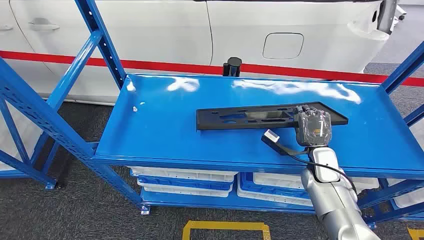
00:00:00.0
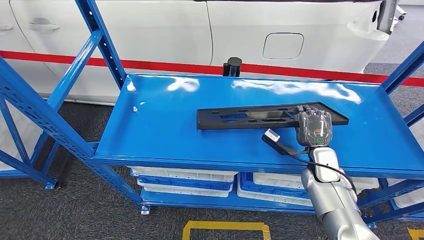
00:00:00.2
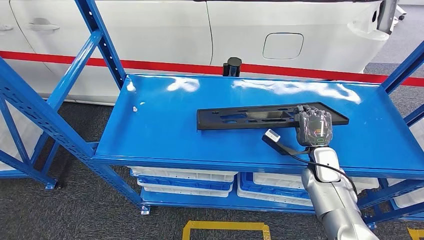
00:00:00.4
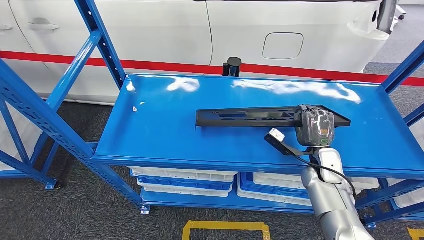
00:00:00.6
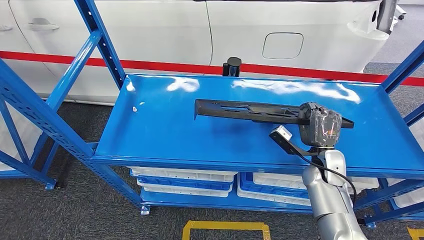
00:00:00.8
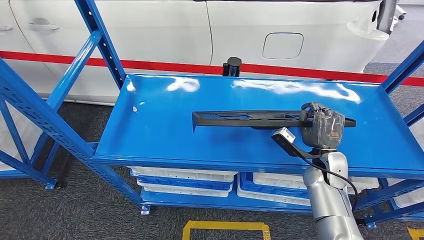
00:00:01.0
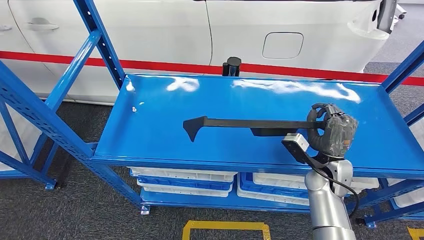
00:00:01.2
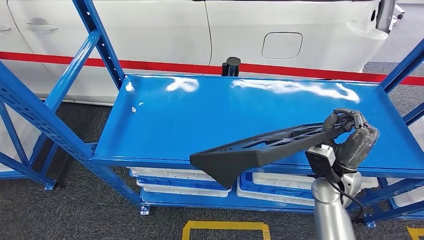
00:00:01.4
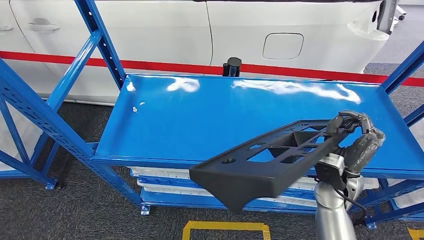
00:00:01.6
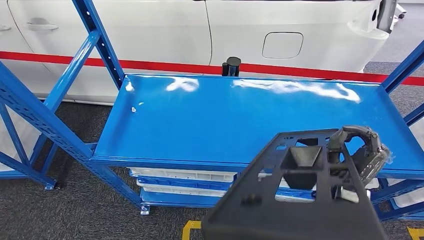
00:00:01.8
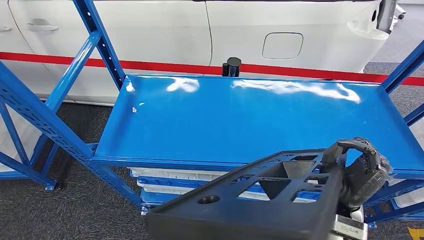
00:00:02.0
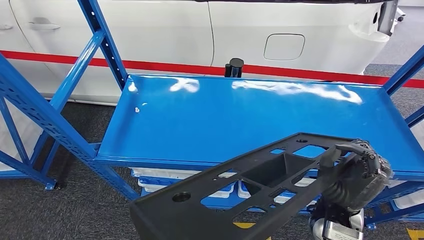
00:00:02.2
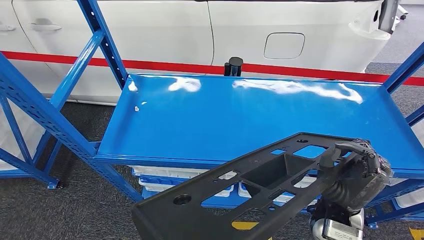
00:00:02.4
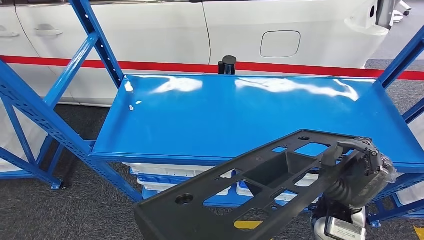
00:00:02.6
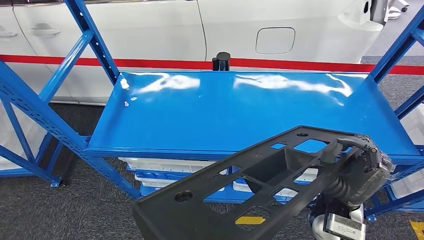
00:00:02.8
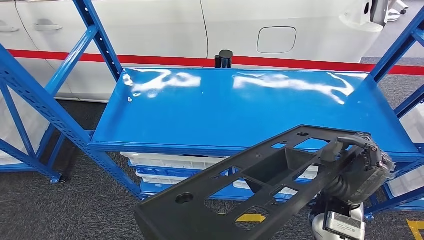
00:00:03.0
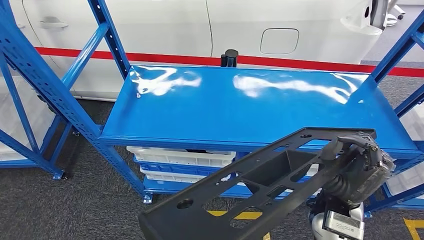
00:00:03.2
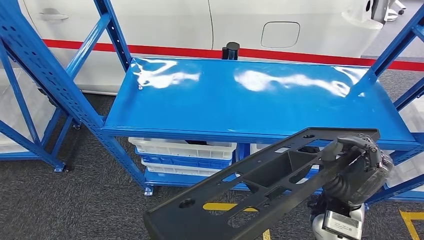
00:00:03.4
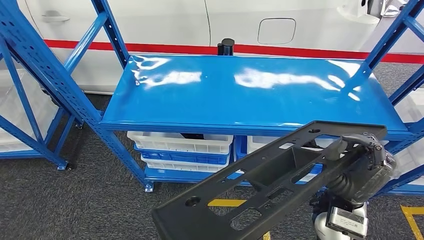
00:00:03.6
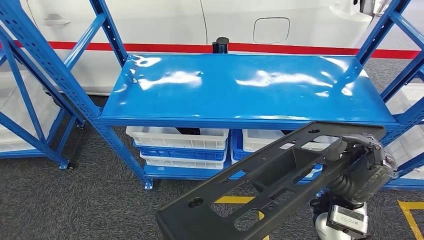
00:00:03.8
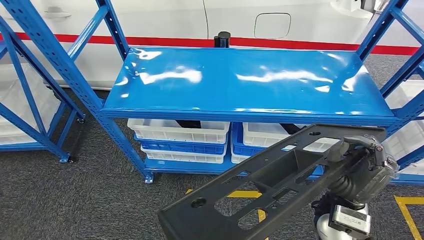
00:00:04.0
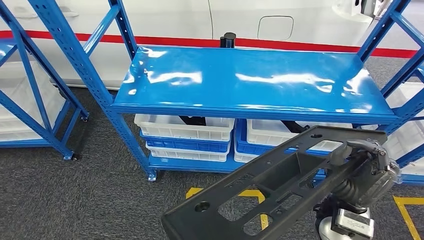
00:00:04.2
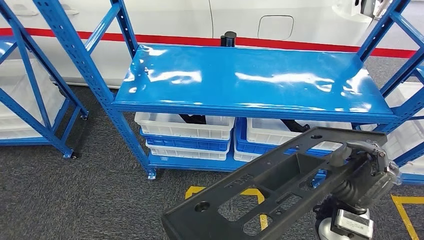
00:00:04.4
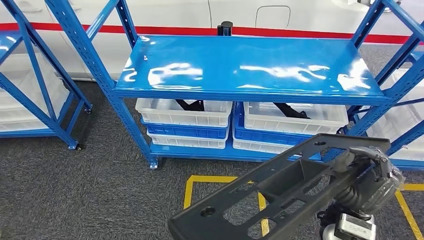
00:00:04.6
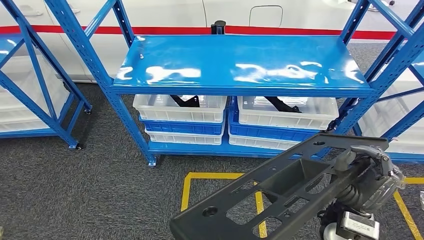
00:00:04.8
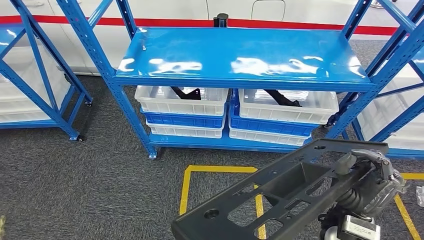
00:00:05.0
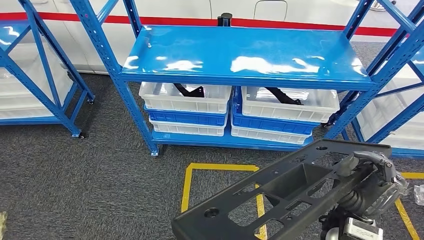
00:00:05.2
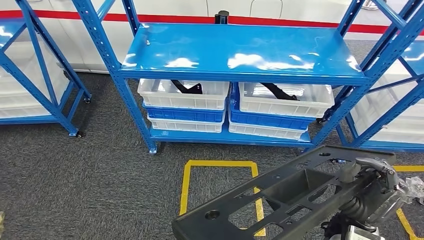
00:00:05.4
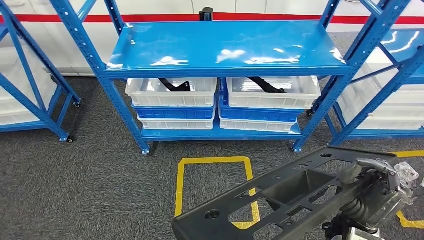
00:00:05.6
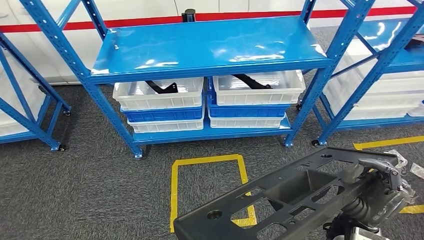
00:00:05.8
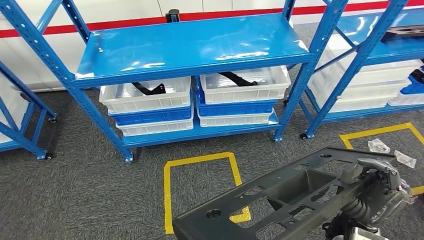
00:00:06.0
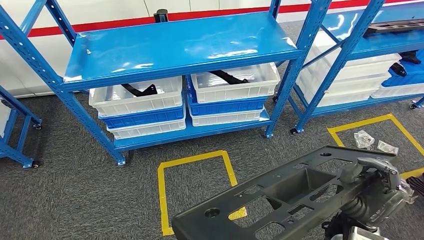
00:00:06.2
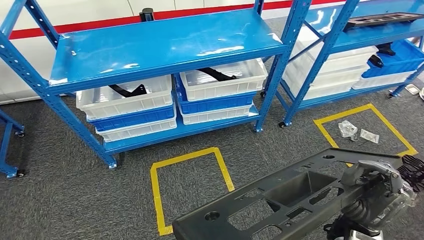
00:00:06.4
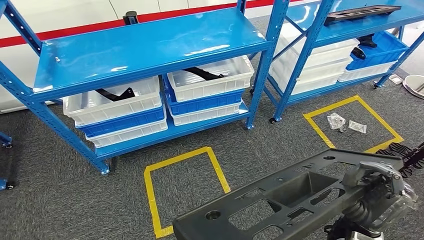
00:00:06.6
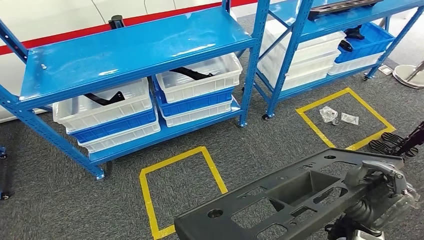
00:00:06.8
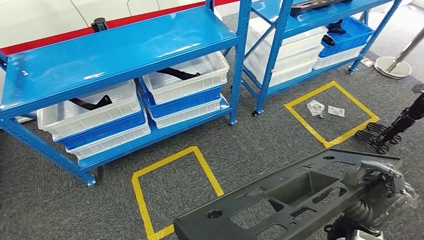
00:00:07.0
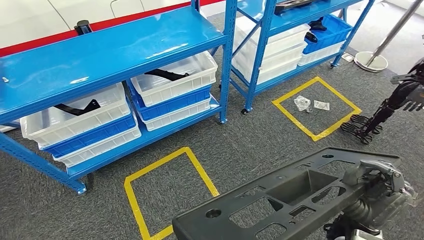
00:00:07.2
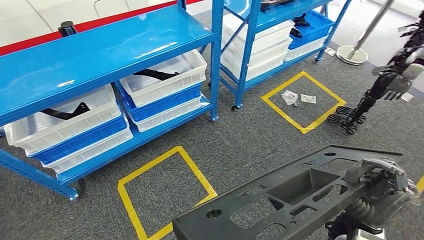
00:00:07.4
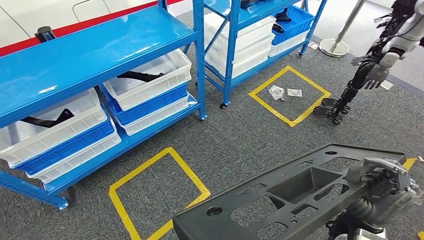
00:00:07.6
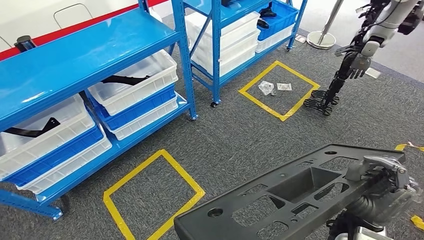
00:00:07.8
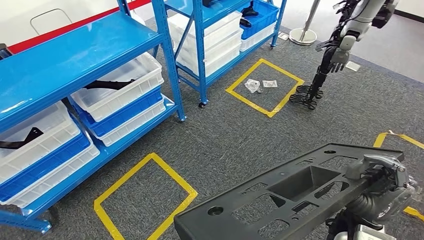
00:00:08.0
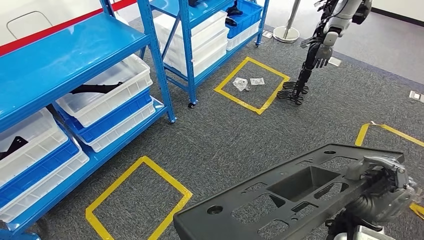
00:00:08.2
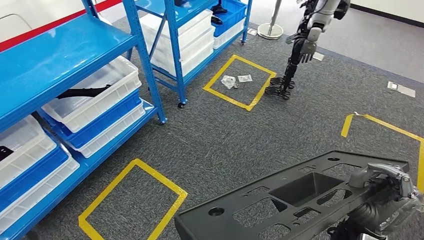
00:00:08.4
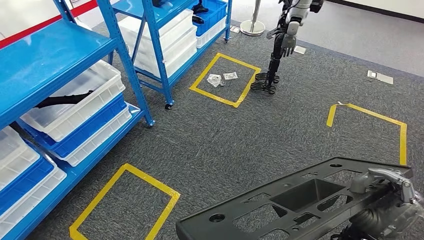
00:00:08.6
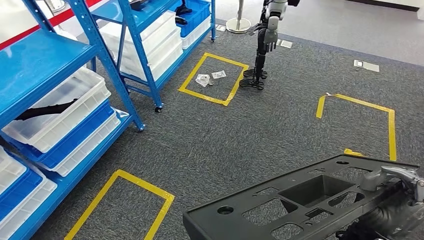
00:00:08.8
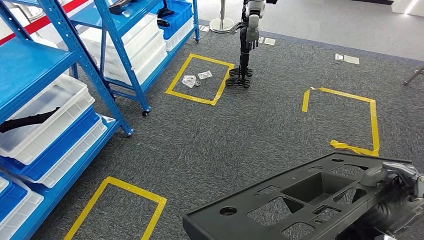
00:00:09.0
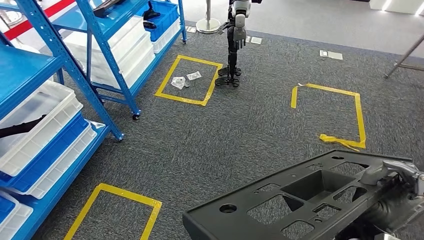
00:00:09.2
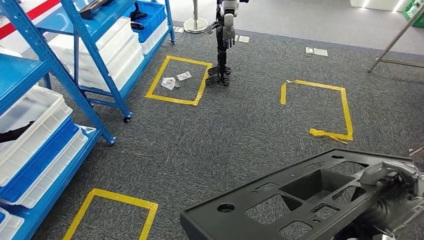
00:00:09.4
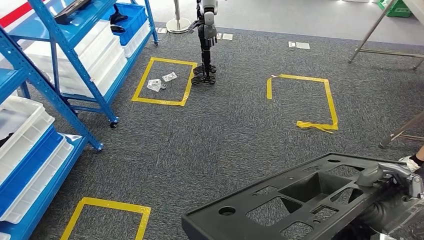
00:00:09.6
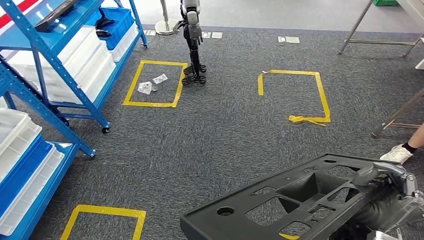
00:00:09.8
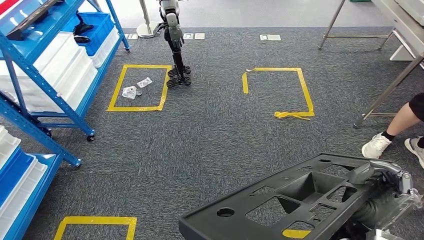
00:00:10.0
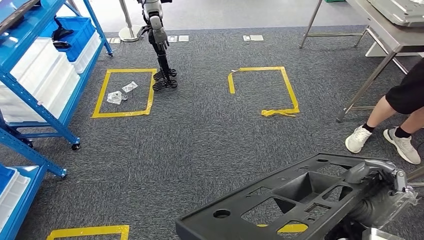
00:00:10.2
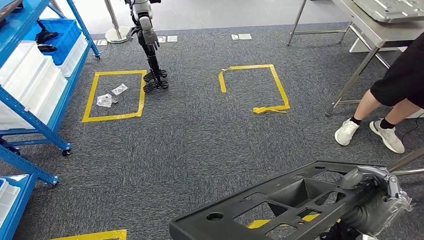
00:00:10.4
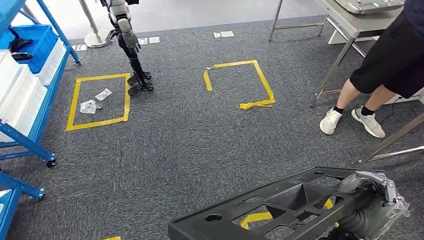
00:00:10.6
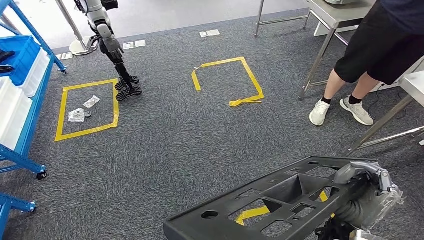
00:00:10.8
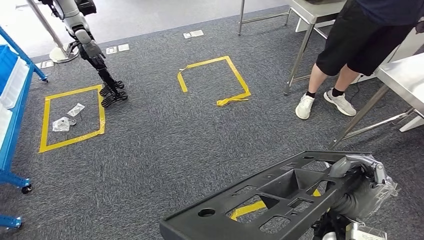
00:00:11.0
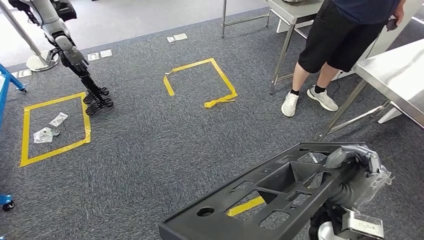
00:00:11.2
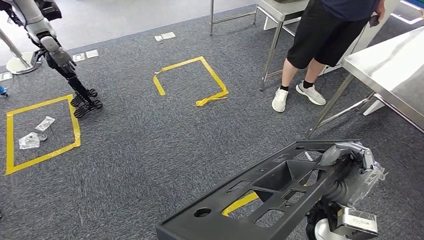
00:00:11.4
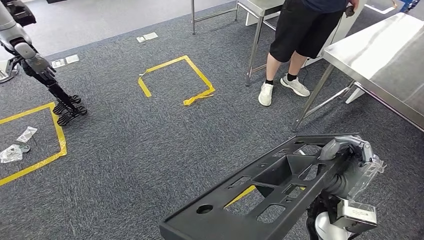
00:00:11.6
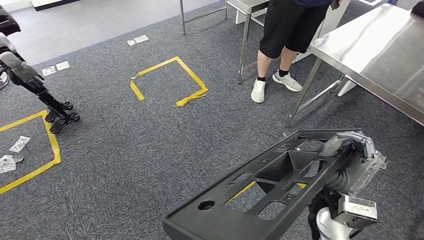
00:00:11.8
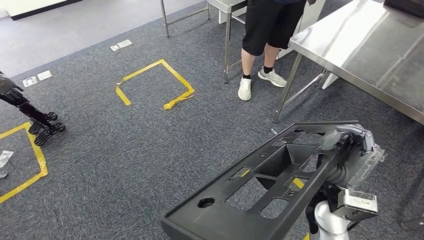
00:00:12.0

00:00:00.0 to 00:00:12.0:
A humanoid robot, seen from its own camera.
Step, 00:00:00.0 to 00:00:06.8: Pick up the large material from the shelf.

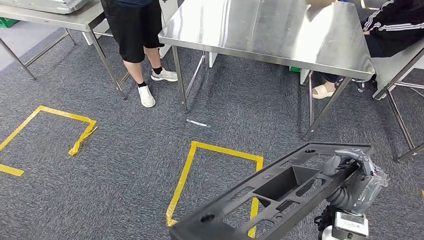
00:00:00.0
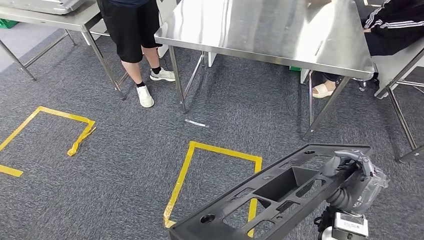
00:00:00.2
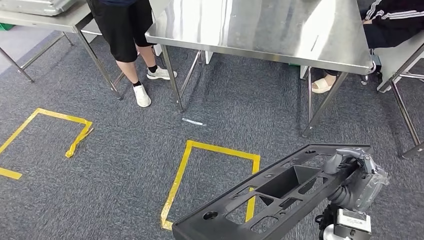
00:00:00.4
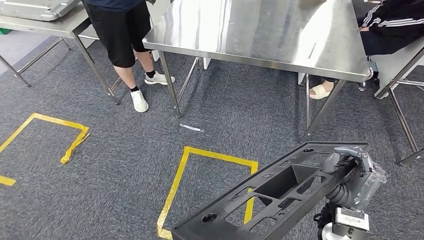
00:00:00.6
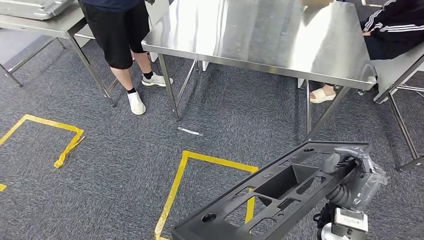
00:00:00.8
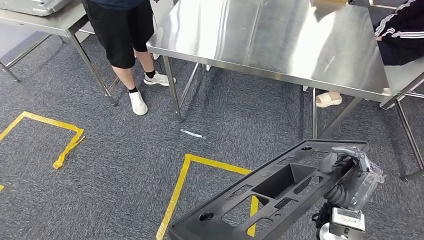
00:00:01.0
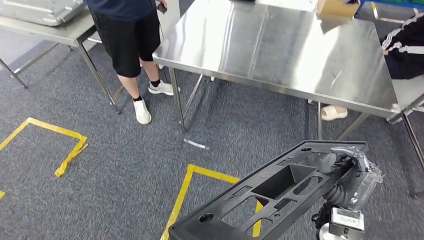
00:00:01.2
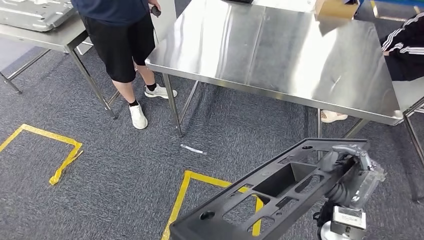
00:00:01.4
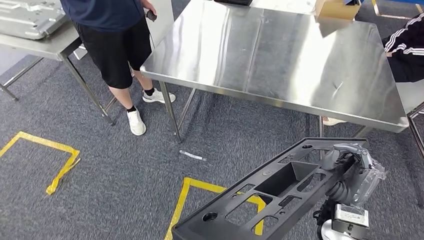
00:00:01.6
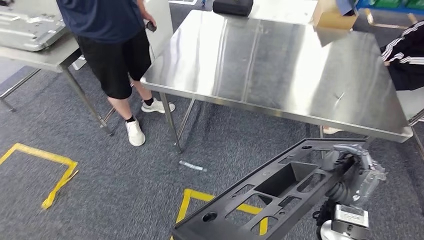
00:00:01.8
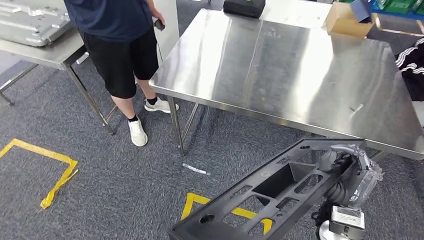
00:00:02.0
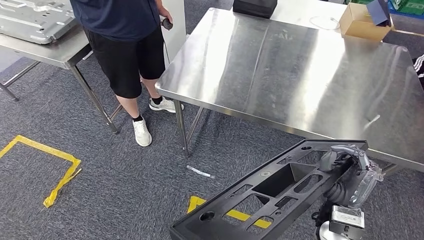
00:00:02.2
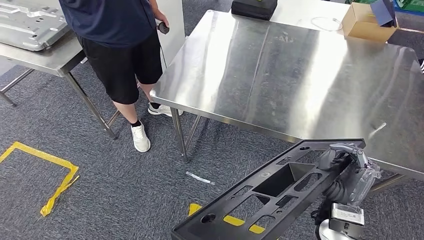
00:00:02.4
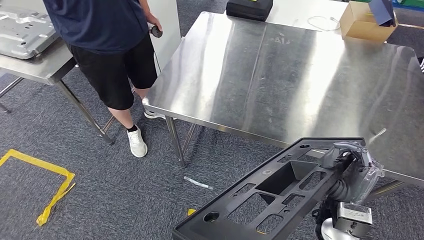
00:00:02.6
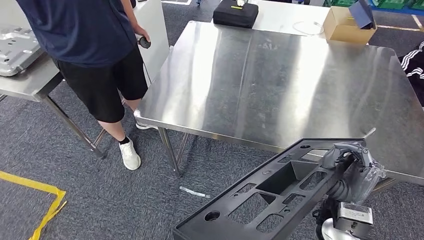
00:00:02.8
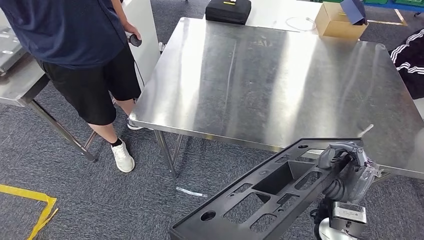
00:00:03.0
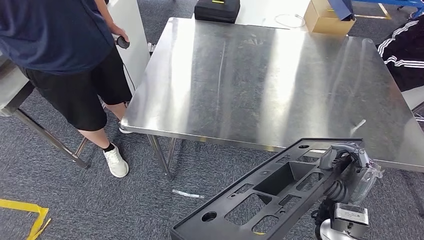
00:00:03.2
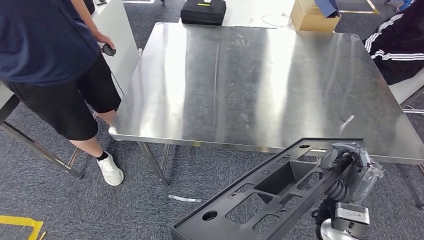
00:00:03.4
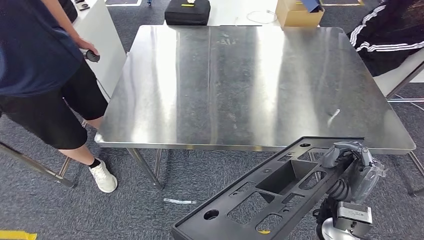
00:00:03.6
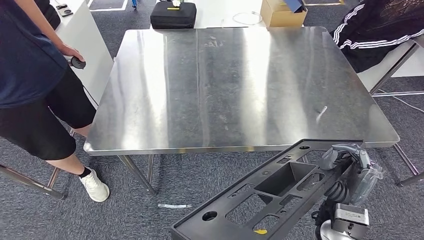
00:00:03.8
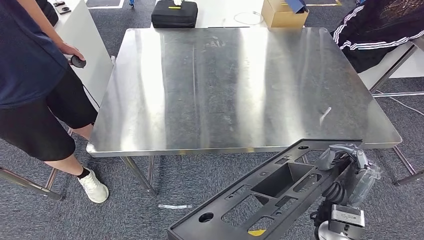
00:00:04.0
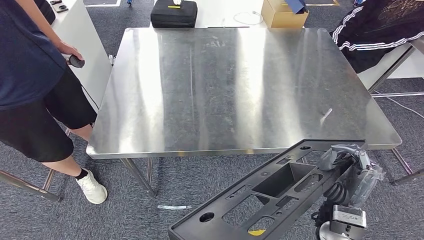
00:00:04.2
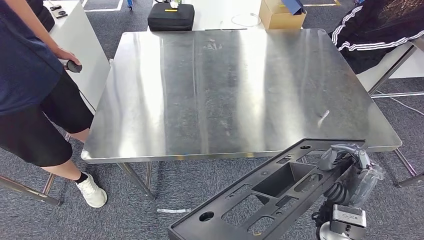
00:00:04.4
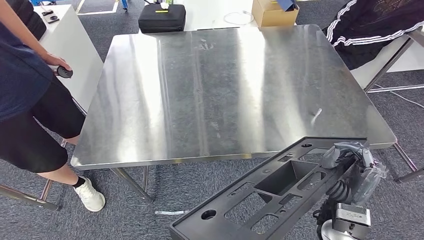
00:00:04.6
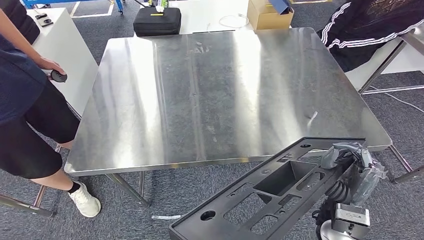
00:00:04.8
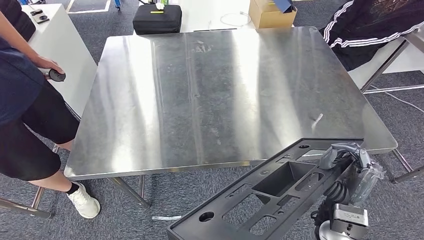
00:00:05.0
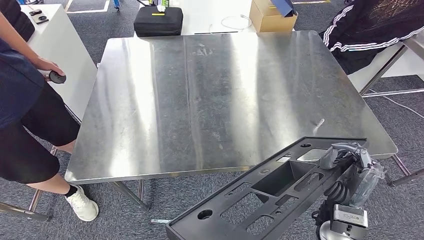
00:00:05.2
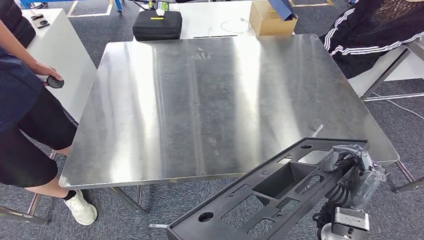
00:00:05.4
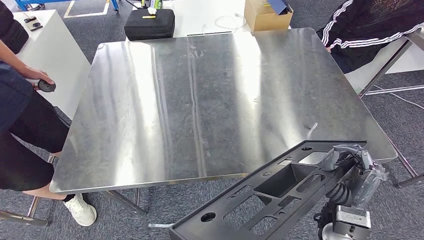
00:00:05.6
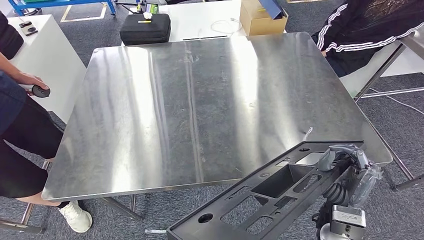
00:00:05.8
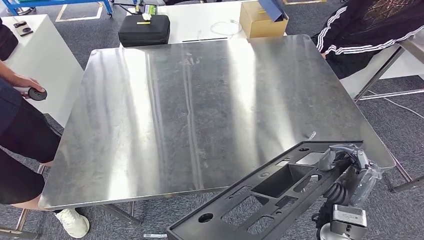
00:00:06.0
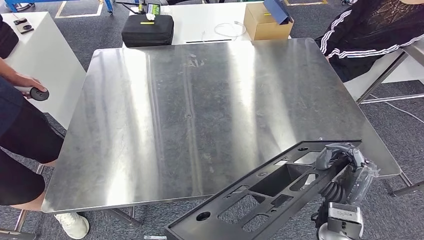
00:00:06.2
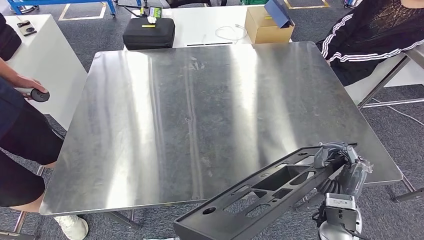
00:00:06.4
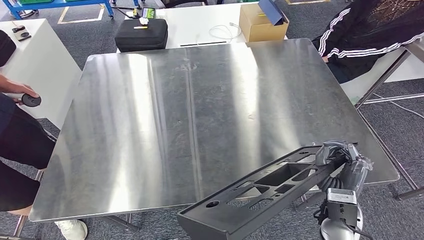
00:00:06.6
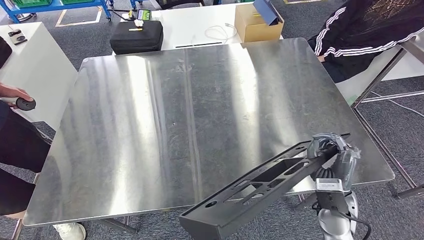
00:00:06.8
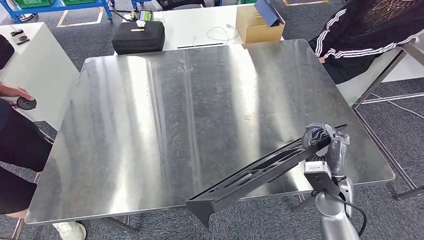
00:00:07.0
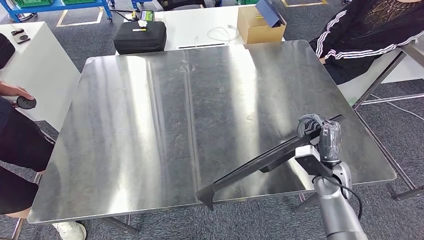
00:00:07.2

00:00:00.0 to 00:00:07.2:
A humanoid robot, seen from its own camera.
Step, 00:00:00.0 to 00:00:03.8: Move the large material to the workbench.
